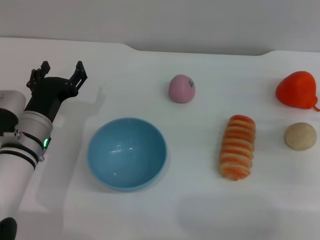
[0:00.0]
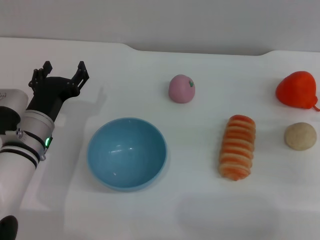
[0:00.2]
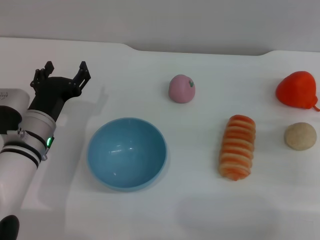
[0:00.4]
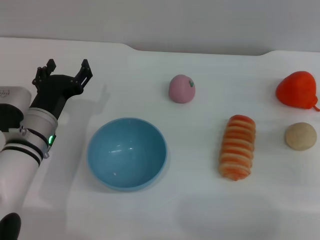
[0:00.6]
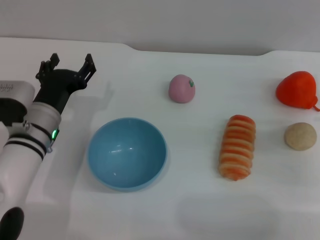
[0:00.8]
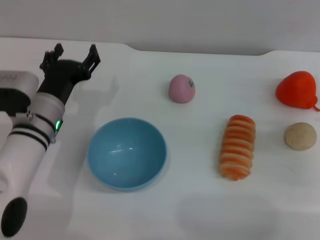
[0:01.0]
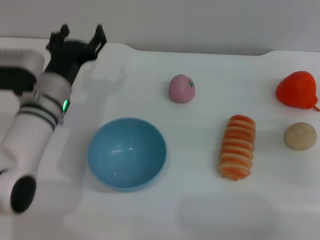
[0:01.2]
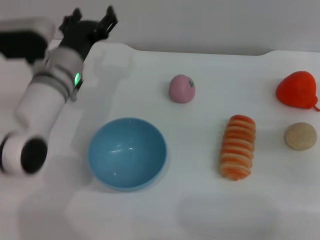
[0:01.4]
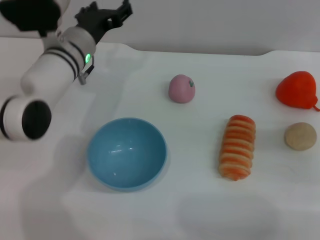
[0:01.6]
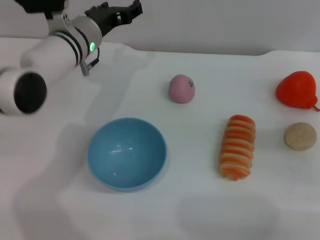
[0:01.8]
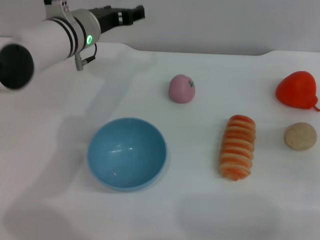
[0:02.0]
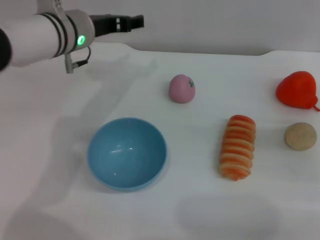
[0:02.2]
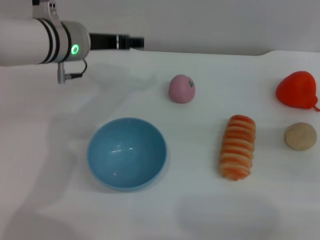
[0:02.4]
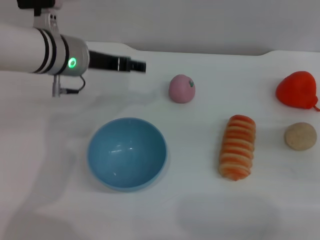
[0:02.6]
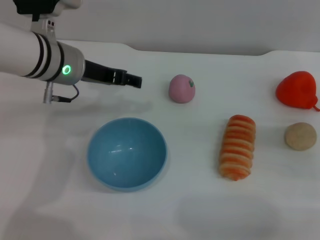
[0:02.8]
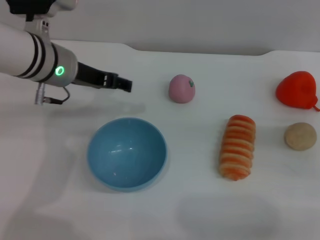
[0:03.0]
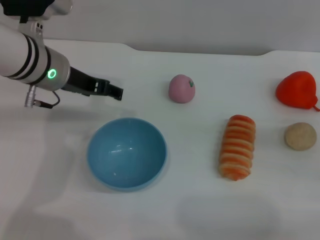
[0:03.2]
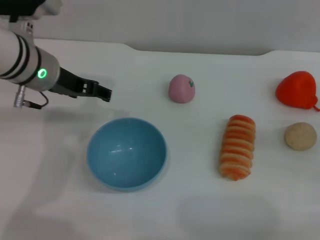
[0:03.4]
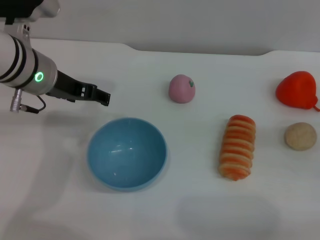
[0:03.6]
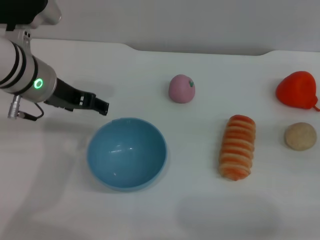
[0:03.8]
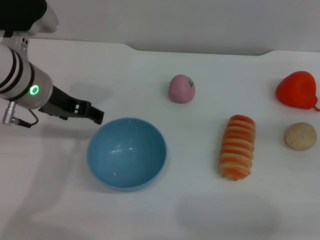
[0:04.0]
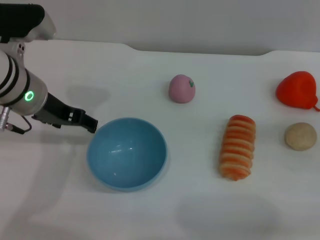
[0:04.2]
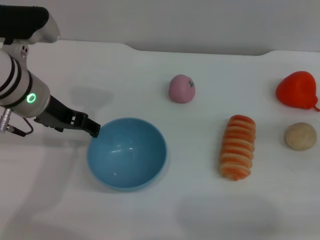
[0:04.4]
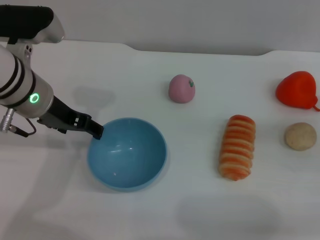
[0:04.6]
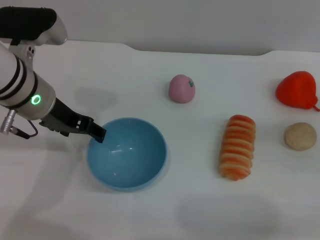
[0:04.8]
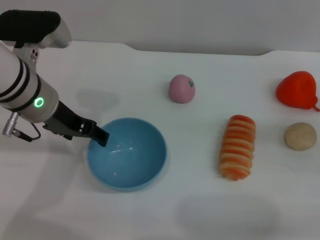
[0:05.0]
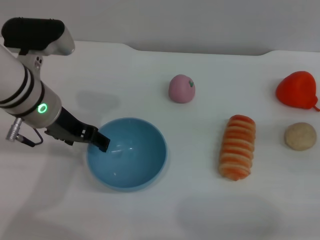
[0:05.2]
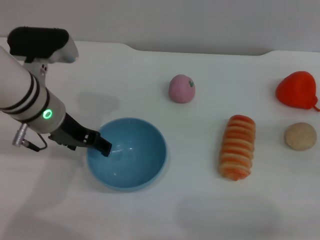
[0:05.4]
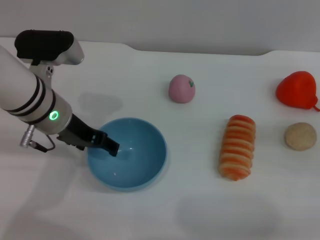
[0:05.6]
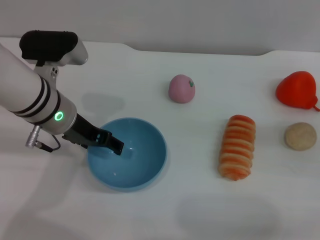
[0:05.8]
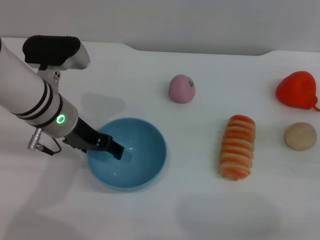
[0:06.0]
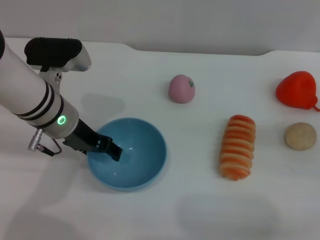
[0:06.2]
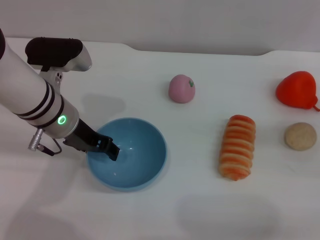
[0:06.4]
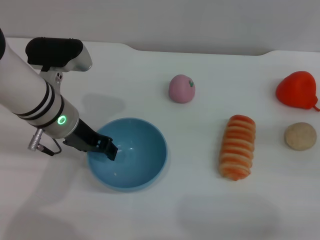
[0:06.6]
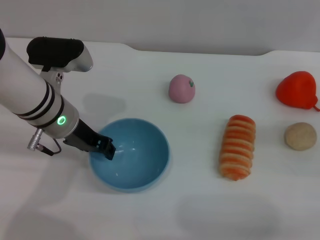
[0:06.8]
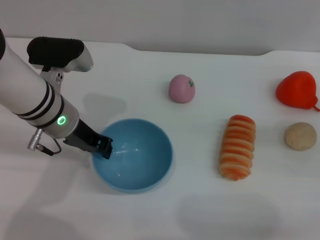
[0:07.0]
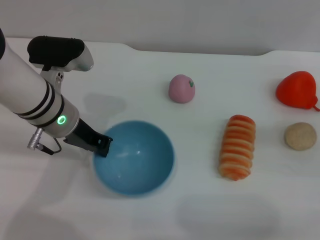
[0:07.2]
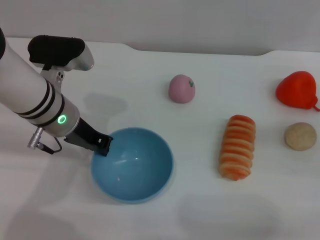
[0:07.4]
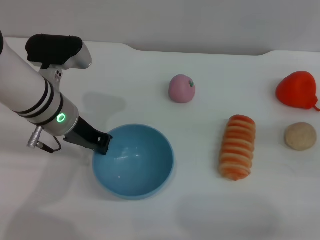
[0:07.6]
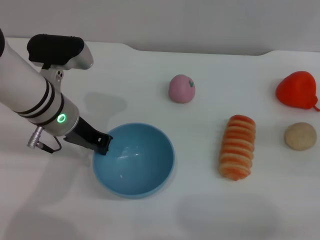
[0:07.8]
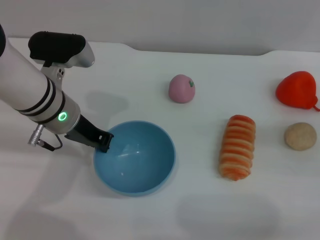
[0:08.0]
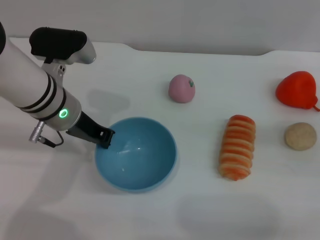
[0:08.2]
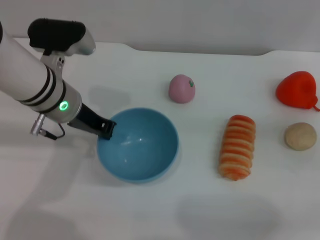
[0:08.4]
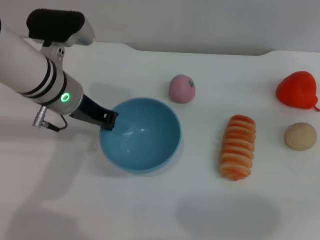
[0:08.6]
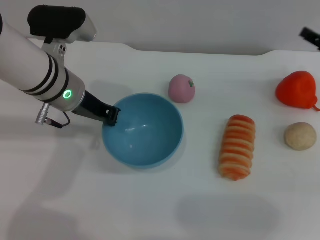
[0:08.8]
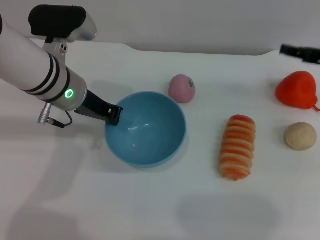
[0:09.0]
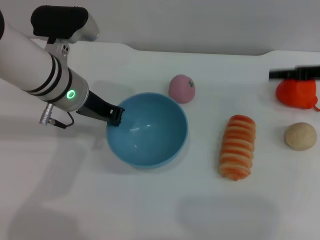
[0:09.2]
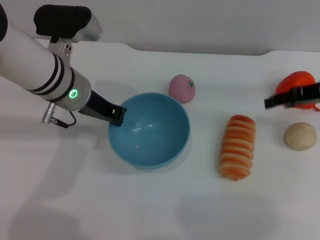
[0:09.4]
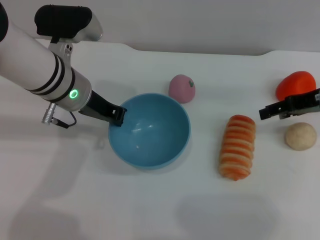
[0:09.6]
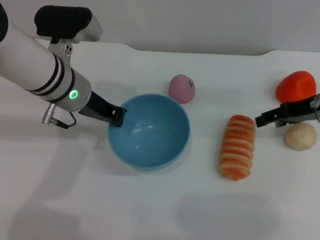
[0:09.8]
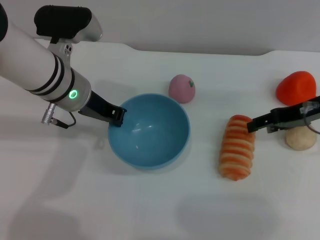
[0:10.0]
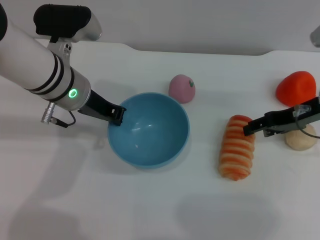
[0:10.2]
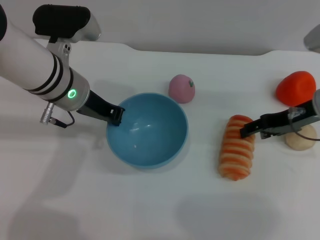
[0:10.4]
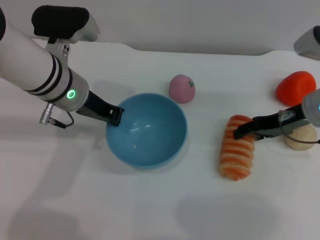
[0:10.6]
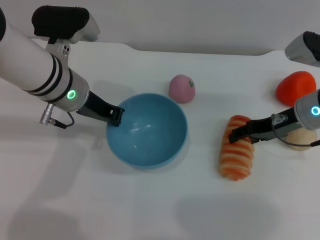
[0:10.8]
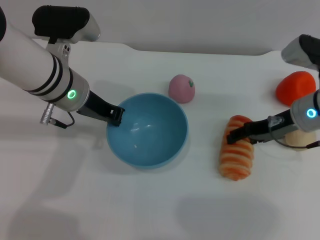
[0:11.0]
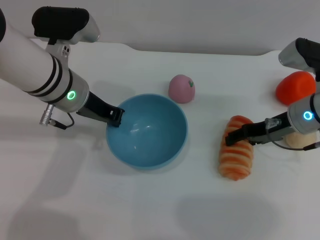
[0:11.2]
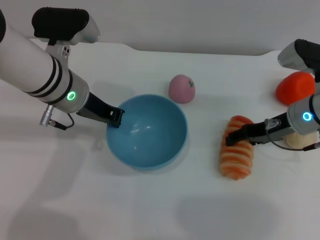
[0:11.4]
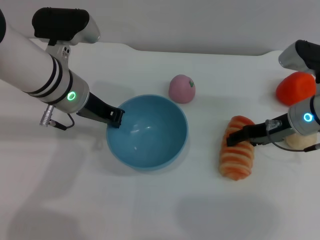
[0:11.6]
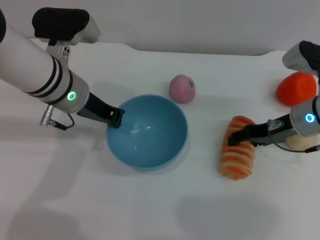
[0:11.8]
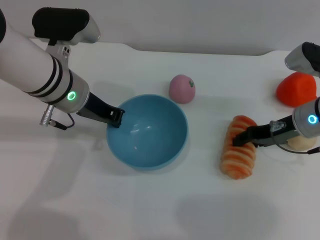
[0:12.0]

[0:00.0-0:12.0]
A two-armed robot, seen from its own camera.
Task of the whole recording: put the bread into the blue bowl and pour it out repeatedly.
Step, 0.0 to 8.6 s: Pick up the bowl with the left gripper.
0.0 to 1.6 s: The left gripper travels forward, upward and to the right by about 15 cm.
1.6 to 3.0 s: The left gripper heads upward, covering some 5 cm.
3.0 to 4.4 s: The grippers make only small movements.
4.4 to 6.0 s: The grippers move only a little.
6.0 to 7.6 s: The left gripper closes.
7.6 to 9.0 s: The right gripper travels upward and forward by about 10 cm.
9.0 to 10.4 s: The right gripper travels to the left by approximately 5 cm.
10.4 to 12.0 s: The grippers stay close to where they were, moving slightly.

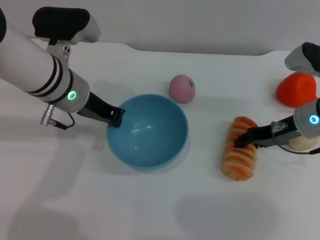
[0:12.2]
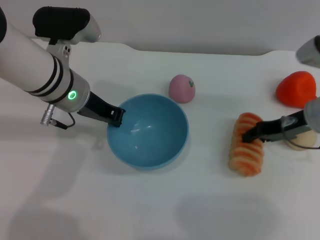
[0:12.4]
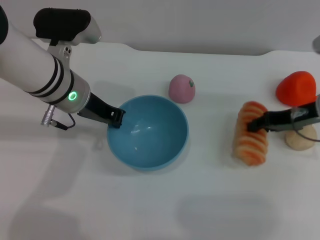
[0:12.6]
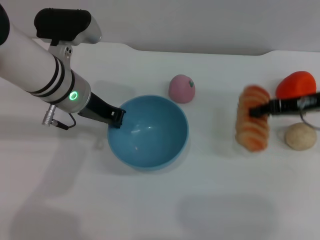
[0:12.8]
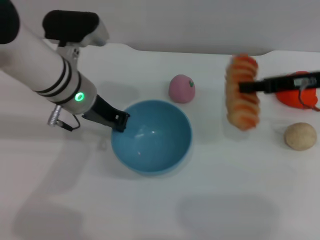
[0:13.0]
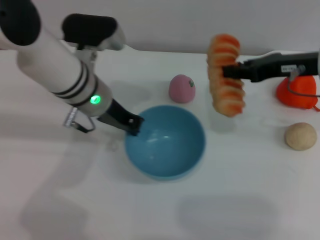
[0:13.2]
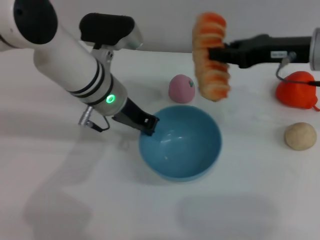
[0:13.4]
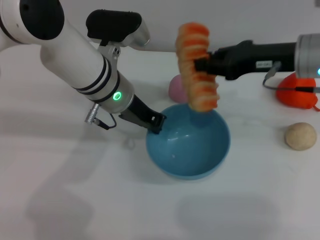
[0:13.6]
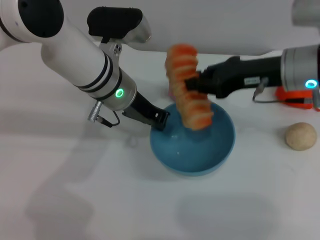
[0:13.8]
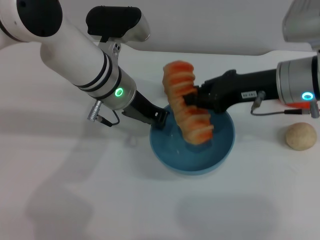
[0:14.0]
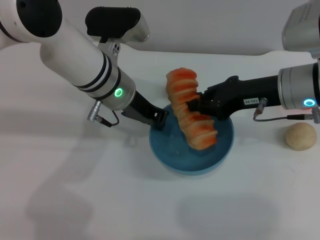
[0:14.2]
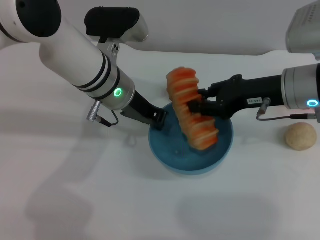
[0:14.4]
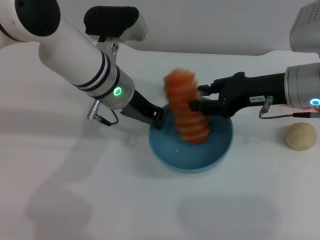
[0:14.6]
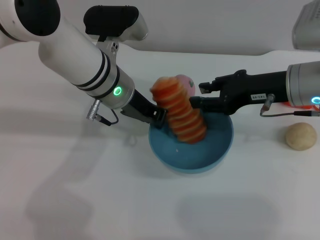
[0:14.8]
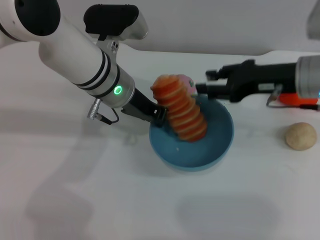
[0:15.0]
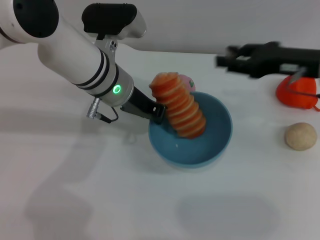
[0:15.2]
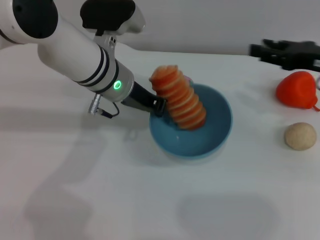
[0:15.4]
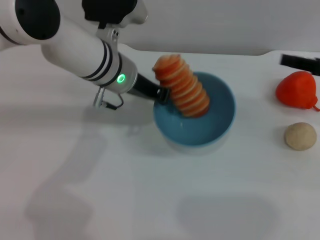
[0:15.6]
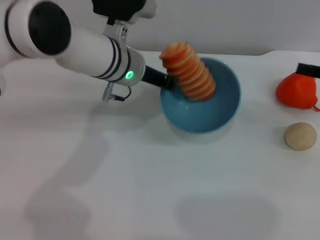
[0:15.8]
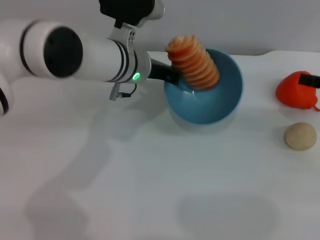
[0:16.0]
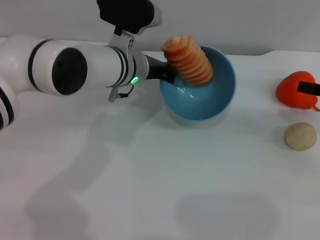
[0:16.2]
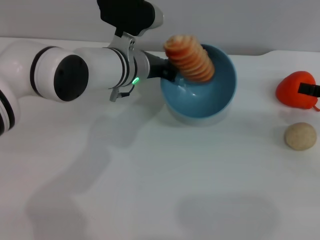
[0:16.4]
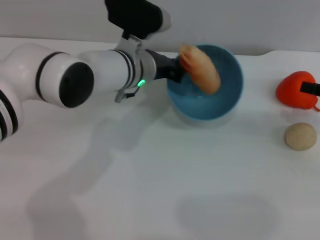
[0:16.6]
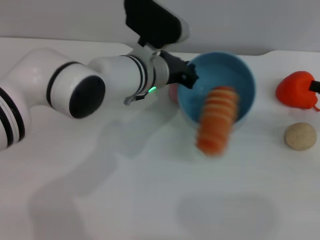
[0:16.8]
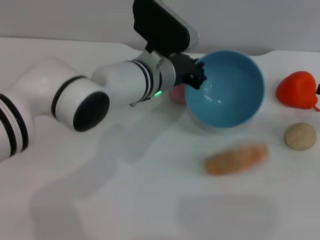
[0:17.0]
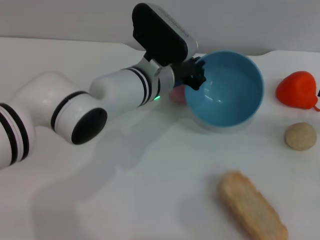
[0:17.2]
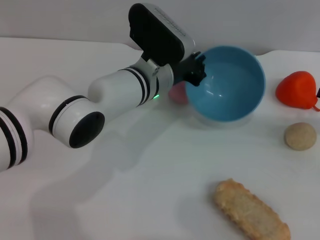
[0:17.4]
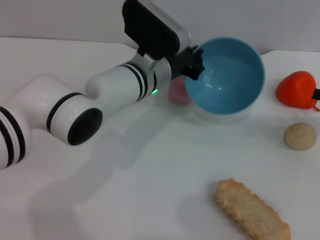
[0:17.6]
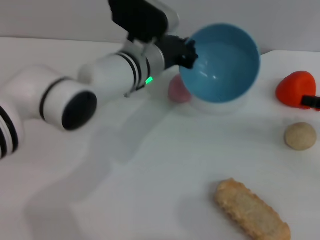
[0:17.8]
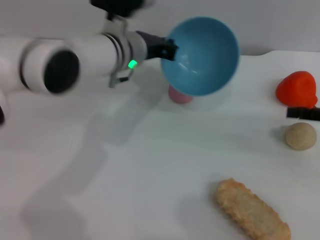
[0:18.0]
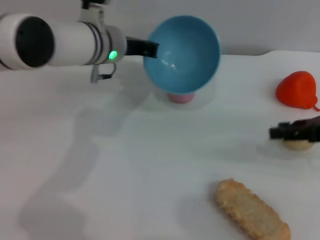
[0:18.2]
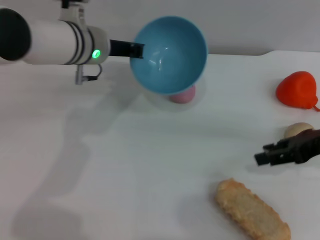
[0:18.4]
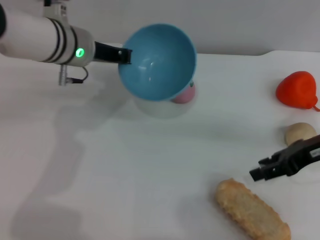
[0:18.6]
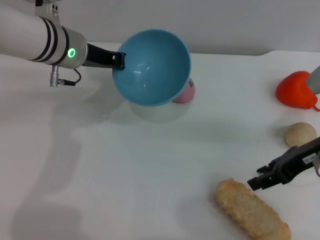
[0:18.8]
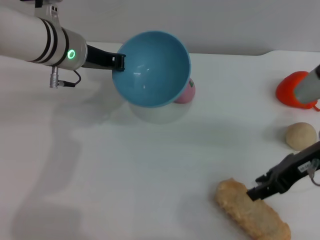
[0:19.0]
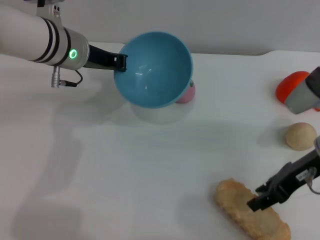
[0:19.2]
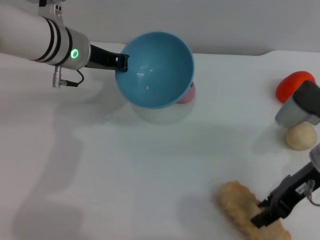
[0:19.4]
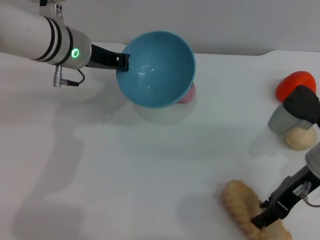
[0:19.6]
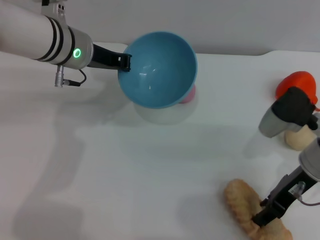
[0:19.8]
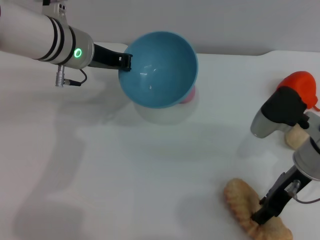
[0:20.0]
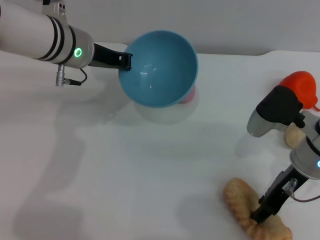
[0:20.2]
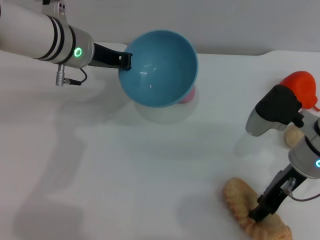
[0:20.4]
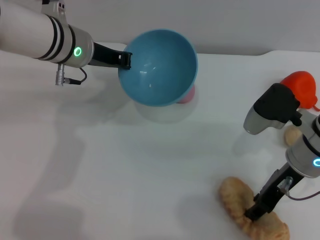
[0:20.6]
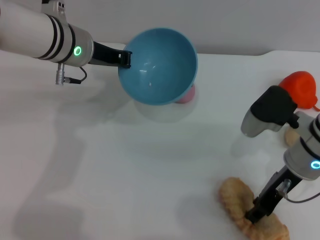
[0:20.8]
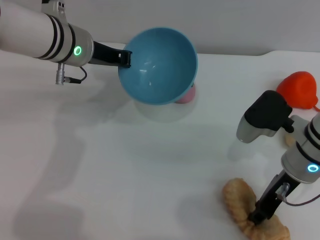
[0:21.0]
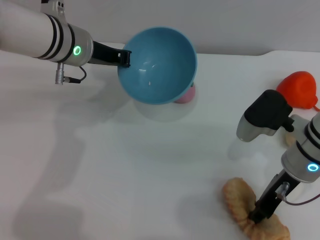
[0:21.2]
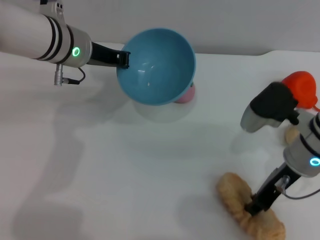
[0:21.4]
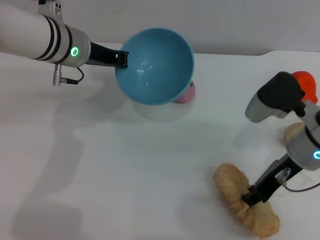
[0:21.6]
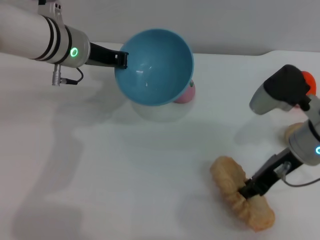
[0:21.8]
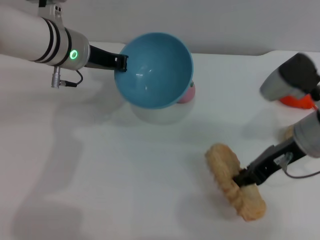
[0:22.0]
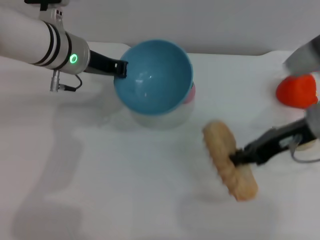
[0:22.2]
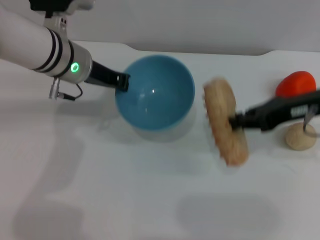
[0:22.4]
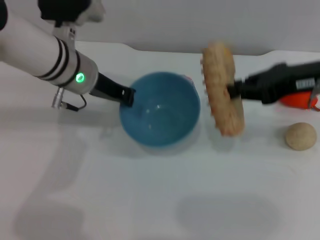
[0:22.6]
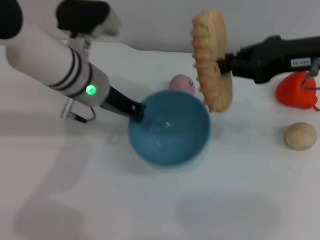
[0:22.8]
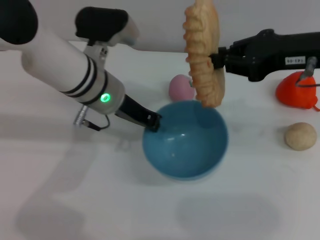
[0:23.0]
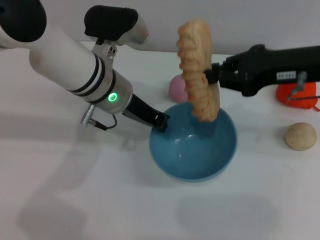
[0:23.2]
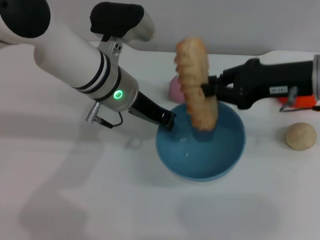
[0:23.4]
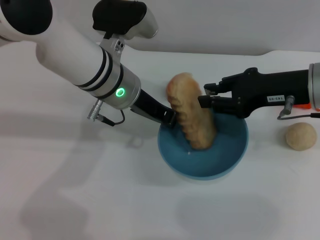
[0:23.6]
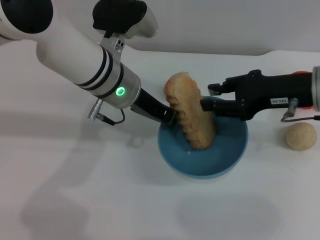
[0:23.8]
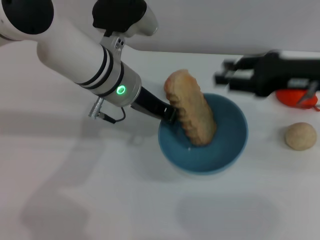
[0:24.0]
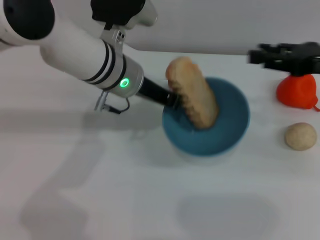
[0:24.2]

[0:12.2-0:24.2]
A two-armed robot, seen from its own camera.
Task of the whole recording: put the bread into the blue bowl and pour it out repeatedly.
Step, 12.8 to 15.2 s: Place the bread into the bowl.
Step, 15.4 to 17.4 s: Pour the bread out of the bowl.
Step, 17.6 to 21.8 s: Pick up the bread with the right gripper.
Step, 22.2 to 24.0 s: Place the bread into the bowl.
12.2 to 13.8 s: The left gripper moves to the right, approximately 5 cm. Meanwhile the right gripper goes approximately 10 cm upward, and closes.
13.8 to 15.2 s: The right gripper moves to the right, approximately 5 cm, and opens.
15.2 to 16.6 s: The right gripper shifts about 10 cm to the right.
16.6 to 18.2 s: The left gripper moves roughly 5 cm.
18.2 to 19.8 s: The right gripper is displaced to the left by roughly 10 cm. The left gripper moves approximately 5 cm.
19.8 to 21.2 s: The grippers move only a little.
21.2 to 22.6 s: The right gripper moves upward, about 15 cm, and closes.
22.6 to 24.2 s: The right gripper changes place by approximately 5 cm, and opens its fingers, while the left gripper is displaced to the right by approximately 5 cm.
